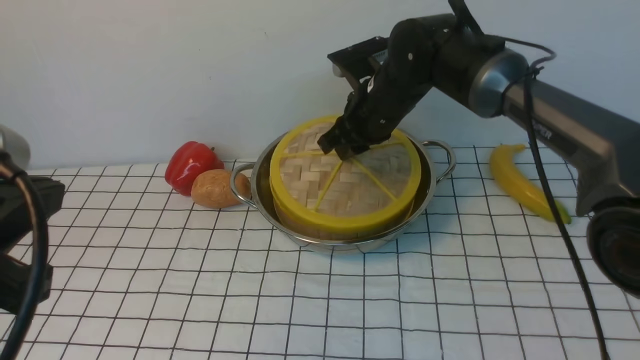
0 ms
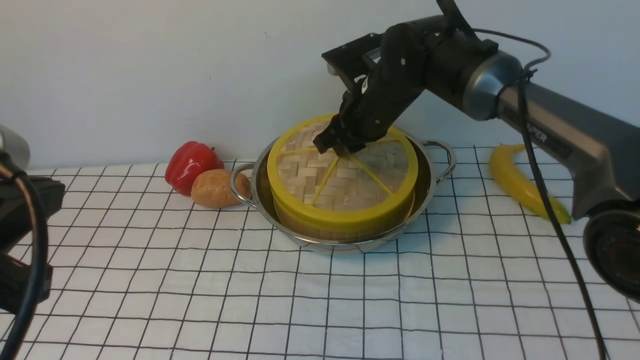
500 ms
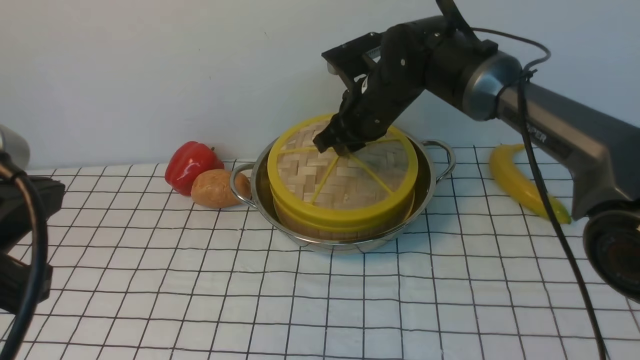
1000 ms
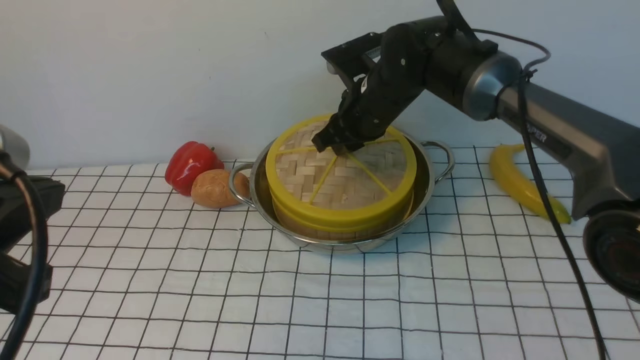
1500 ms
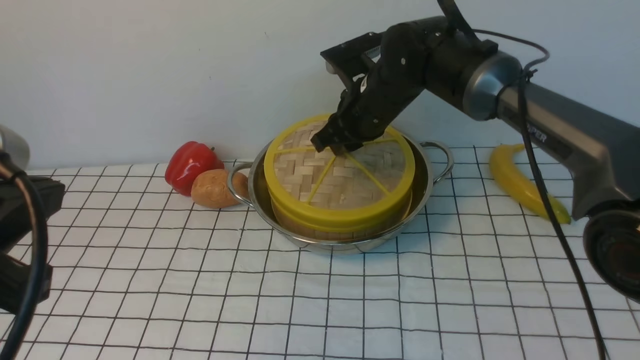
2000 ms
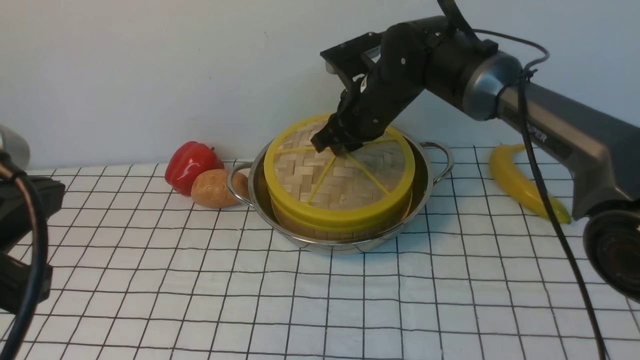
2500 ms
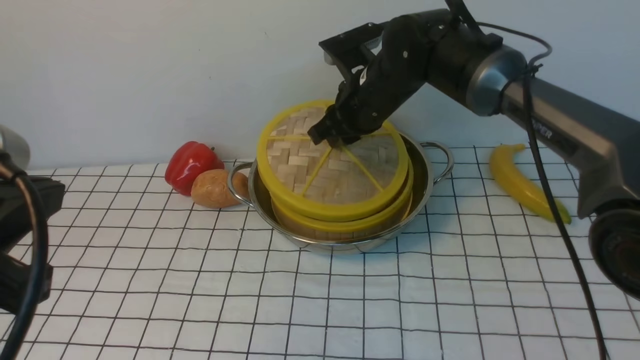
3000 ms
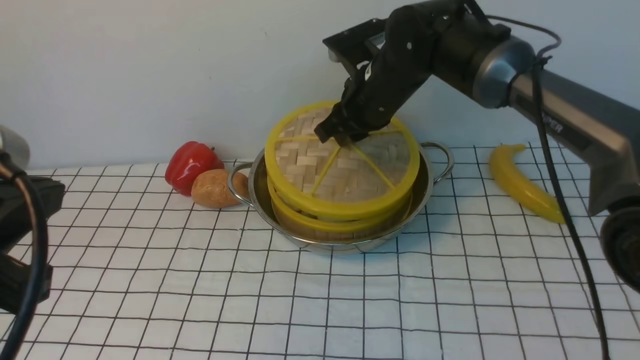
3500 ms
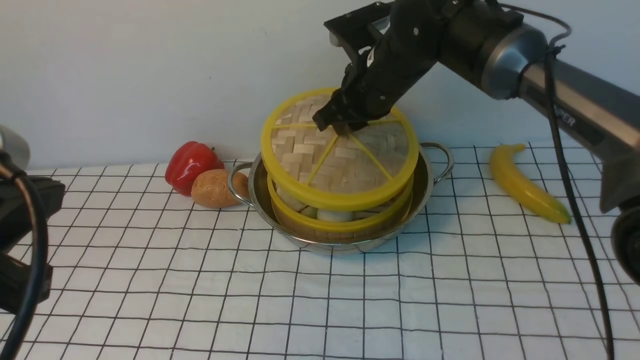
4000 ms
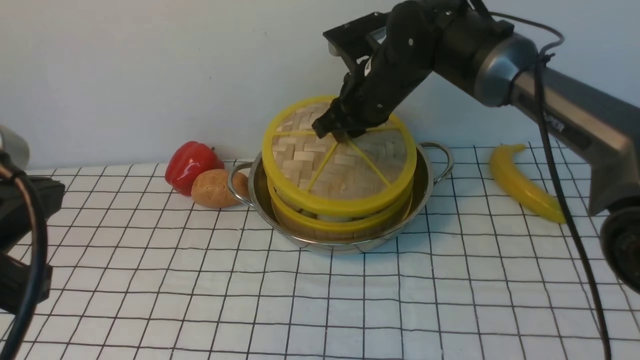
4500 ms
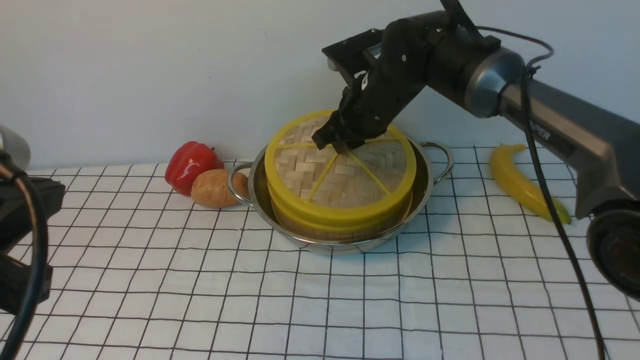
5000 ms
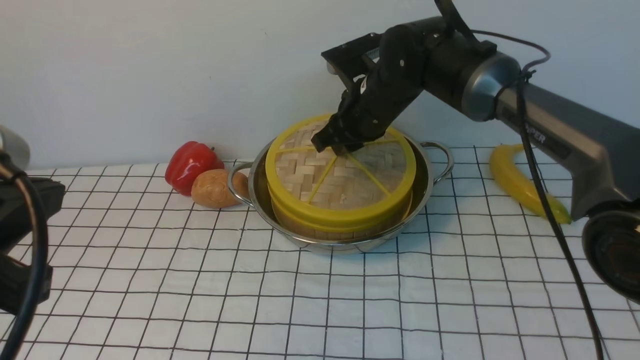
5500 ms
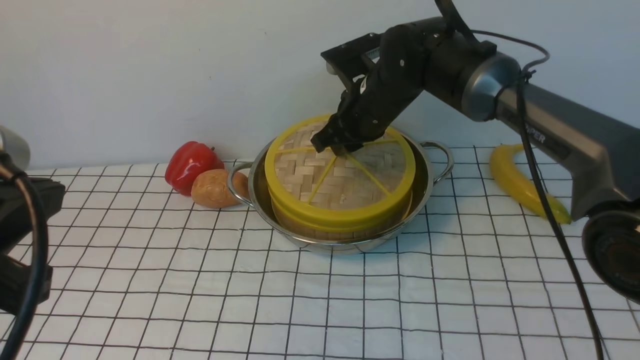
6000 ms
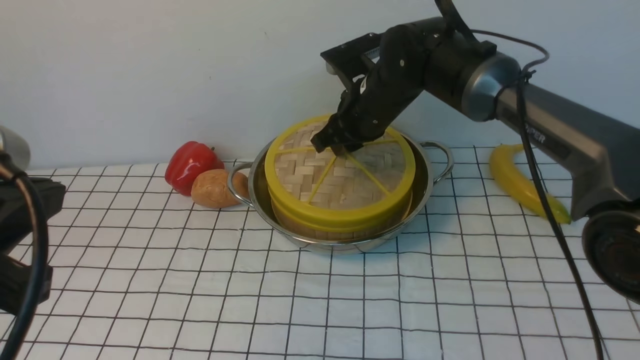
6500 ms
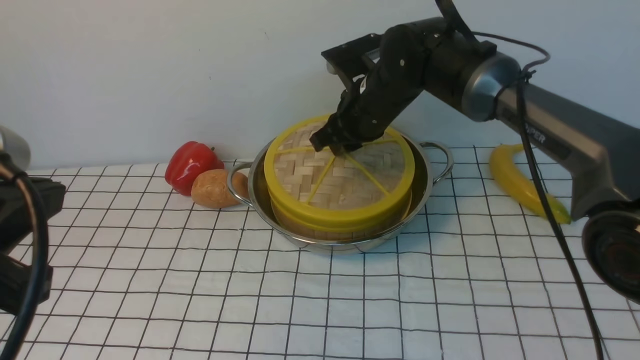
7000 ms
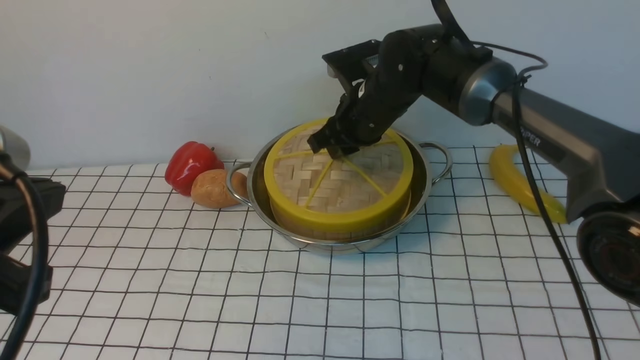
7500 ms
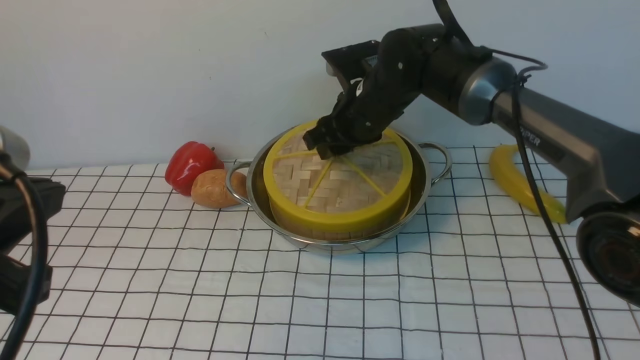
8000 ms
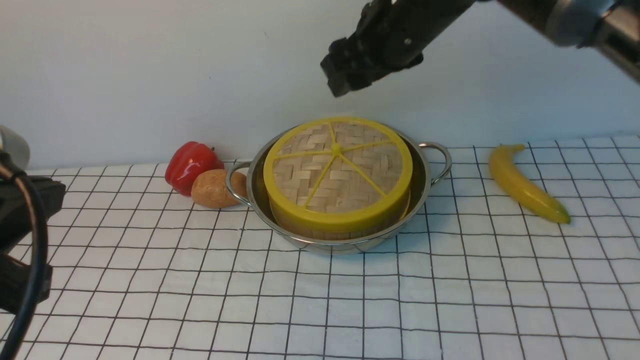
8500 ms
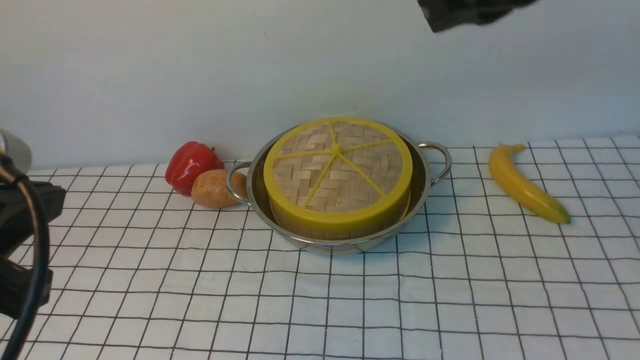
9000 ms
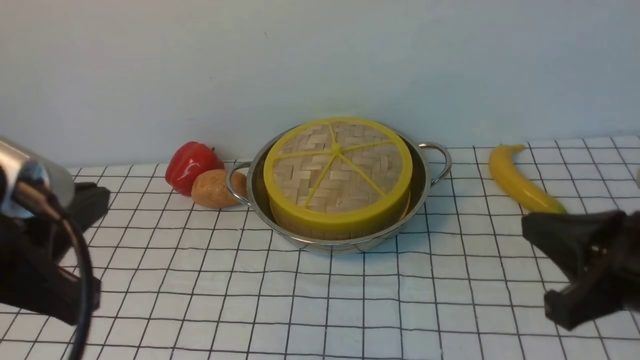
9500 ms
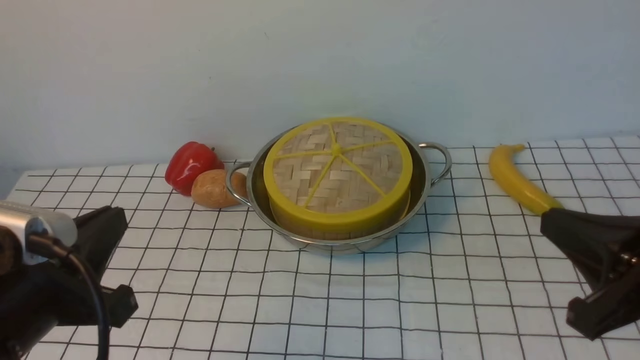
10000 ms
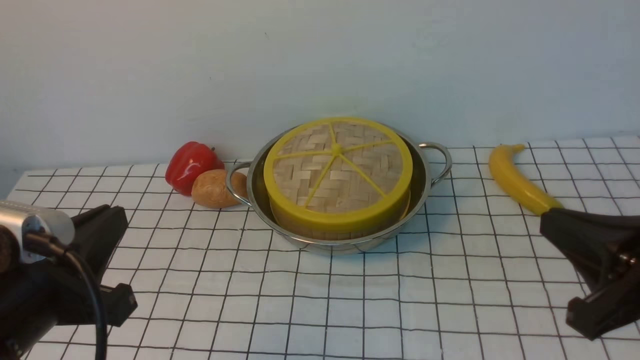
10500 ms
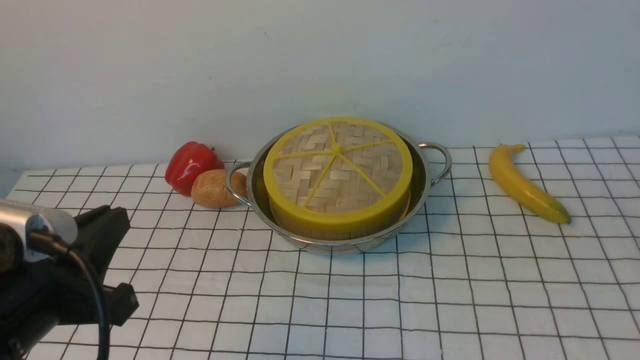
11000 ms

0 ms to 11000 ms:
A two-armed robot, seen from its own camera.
Task of the whole recording: place the steamer in the pot on the white tablecloth, and put the lid on the steamer.
Step, 0 ms to 8000 ms: use the right arm to place the steamer lid on the steamer.
0 ms to 2000 ms: Both grippers stay put.
2000 ms to 5500 ms: The grippers move only a little.
5500 ms to 7500 ms: Both grippers stay put.
7500 ms to 9000 ms: The right gripper is displaced upward, backward and to the right by about 30 cm, and closes its fingers.
9000 ms to 11000 ms: The right gripper is displaced backward, downward and to the right by some 30 cm, while the left gripper heads downward, covering about 10 cm.

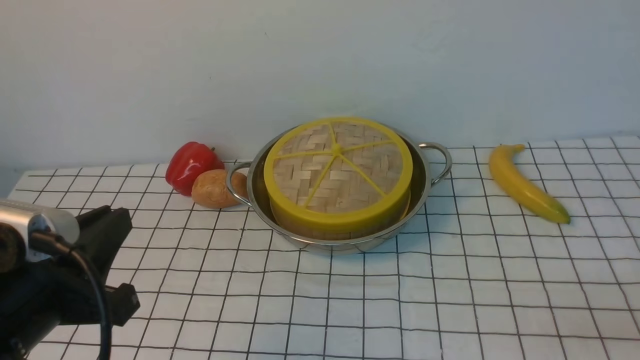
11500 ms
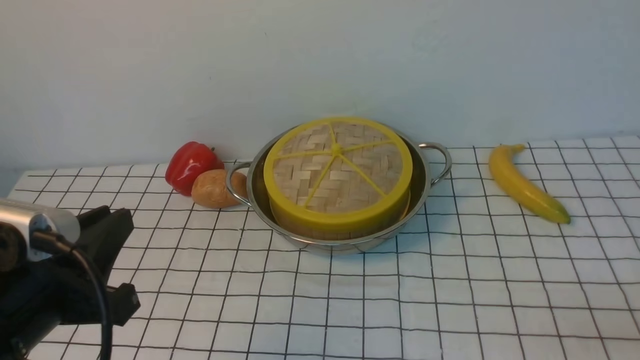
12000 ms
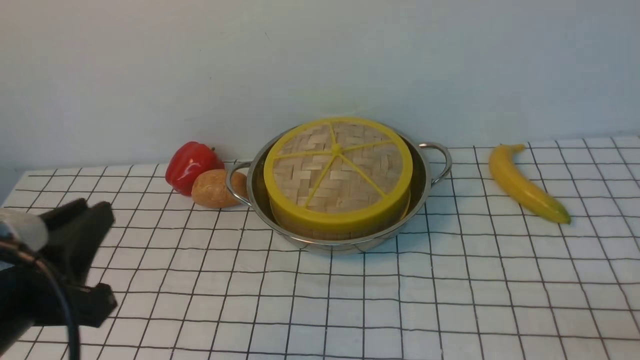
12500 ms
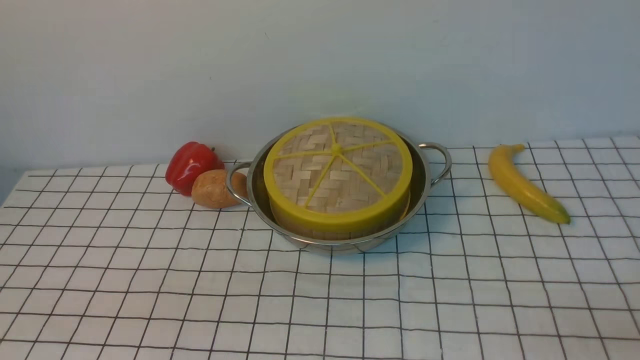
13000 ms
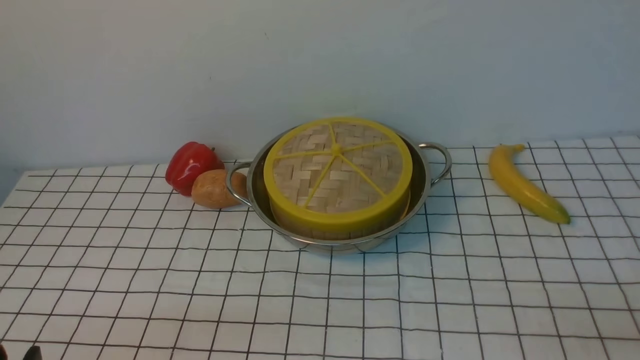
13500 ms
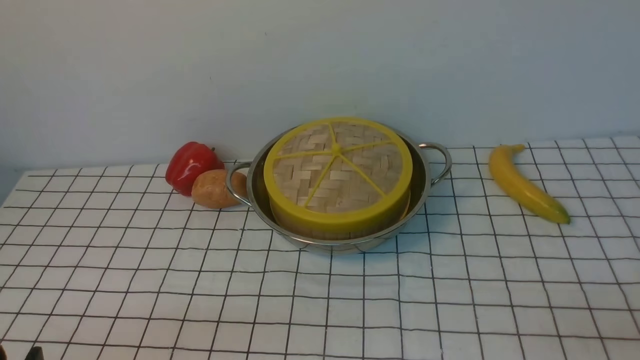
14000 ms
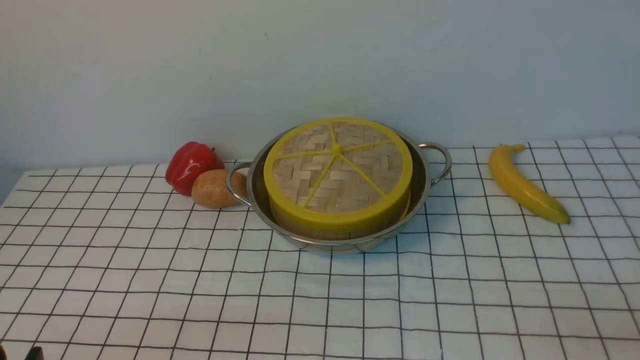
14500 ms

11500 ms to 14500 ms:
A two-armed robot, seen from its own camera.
Task of the whole recording: place the steamer in the pot on the white tablecloth, and put the lid on the steamer.
11500 ms to 13000 ms: The left gripper shifts about 5 cm backward.

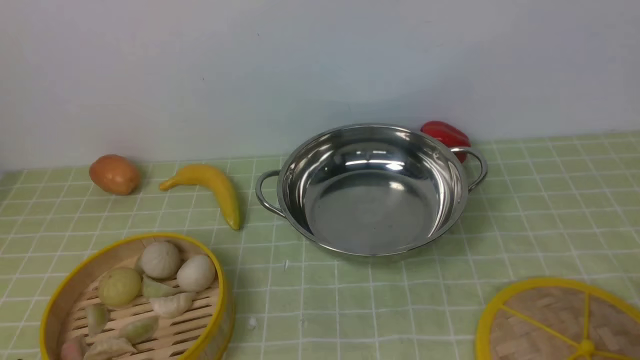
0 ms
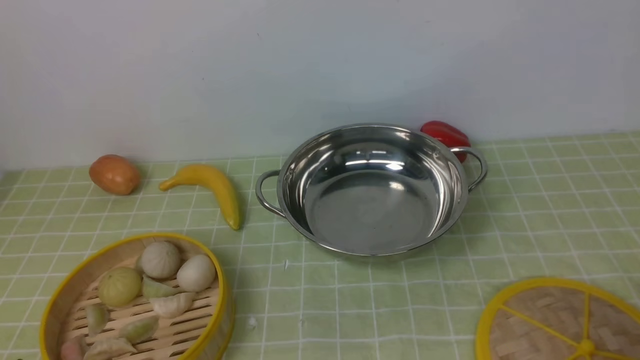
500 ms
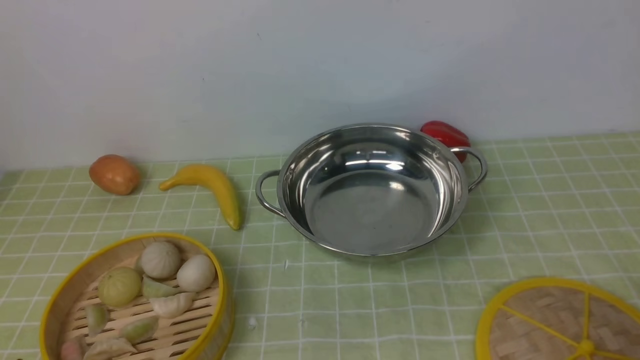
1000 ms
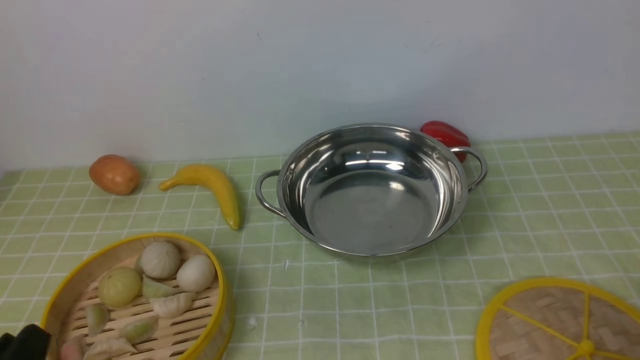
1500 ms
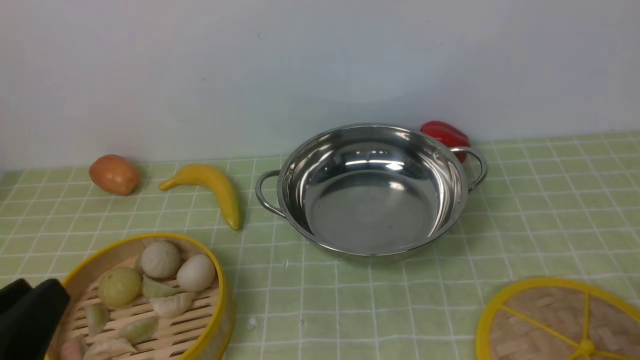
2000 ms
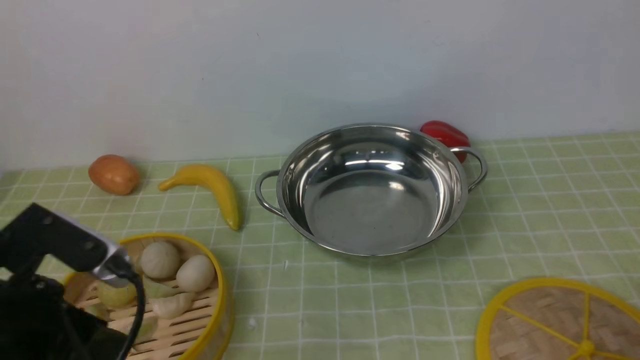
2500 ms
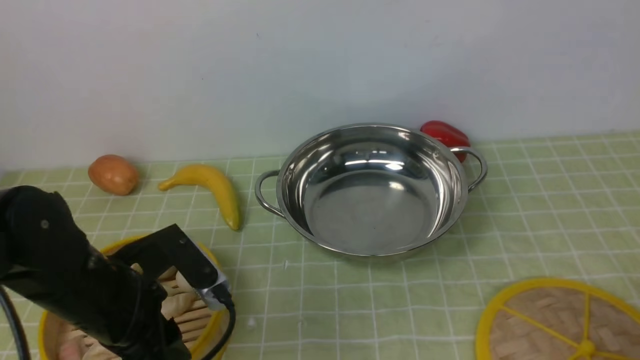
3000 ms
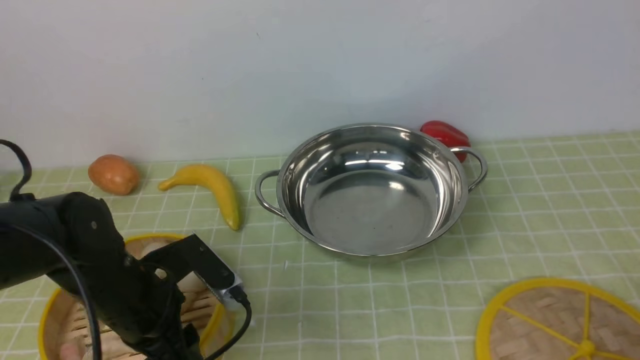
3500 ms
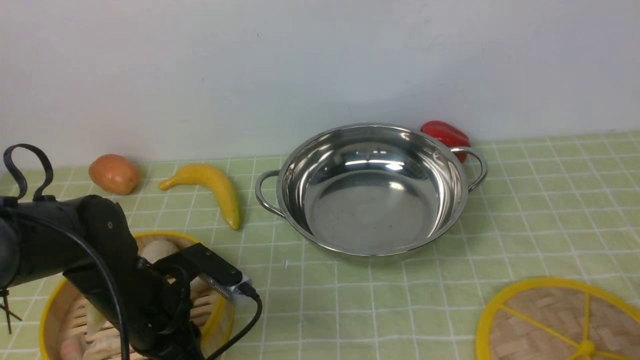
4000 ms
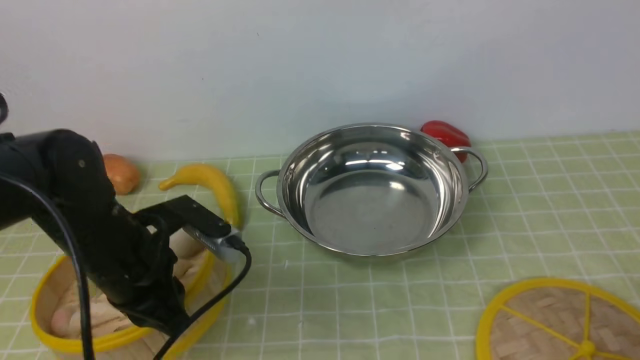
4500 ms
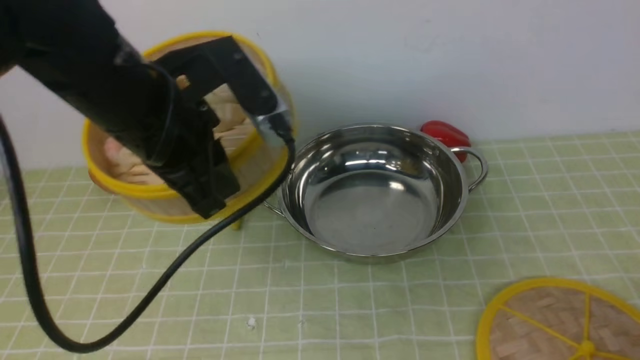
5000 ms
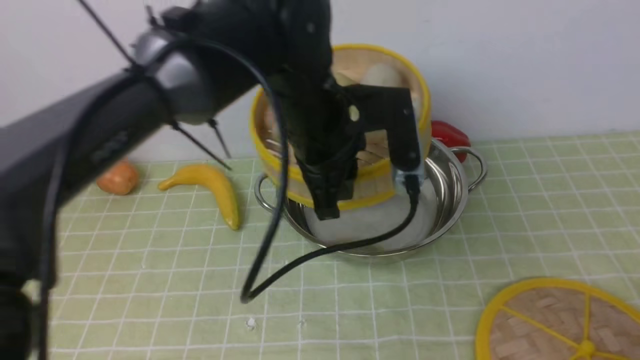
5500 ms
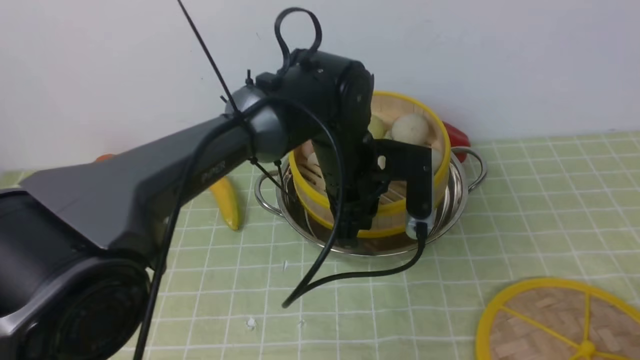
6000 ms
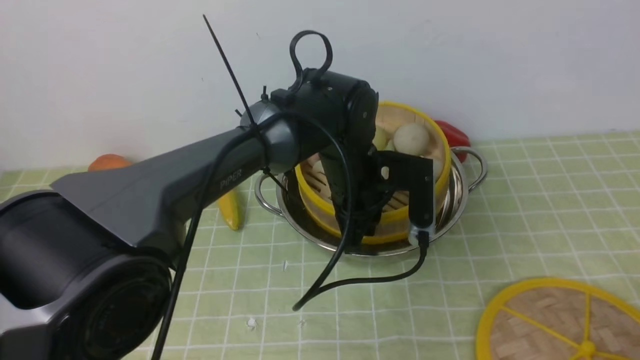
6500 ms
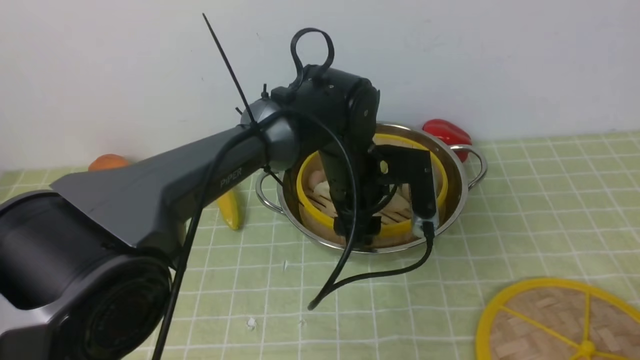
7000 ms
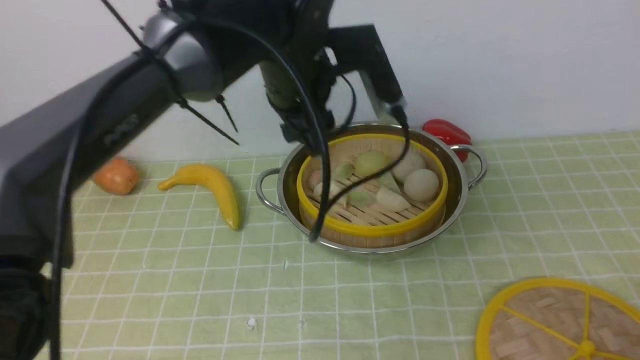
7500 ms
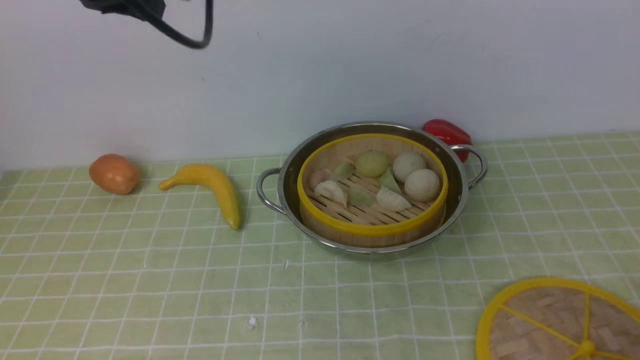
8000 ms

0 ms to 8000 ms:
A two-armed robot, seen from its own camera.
Task of the whole recording: place the steamer in the pot on the green tablecloth, and put the lid on the steamer.
Step, 0 ms to 4500 ms: use the left arm to lift the steamer closest to it.
Step, 5000 ms to 7000 ms: use the left arm to put the steamer into the iron steamer pot in the middle.
0 ms to 2000 ms: The left gripper moves upward, some 10 cm.
2000 ms to 4000 ms: The left gripper travels forward and downward by roughly 25 cm.
4000 ms to 6000 ms: The left gripper moves to the right and forward, about 25 cm.
6000 ms to 8000 ms: The left gripper goes approximately 30 cm upward and to the left, and opens and closes again.
